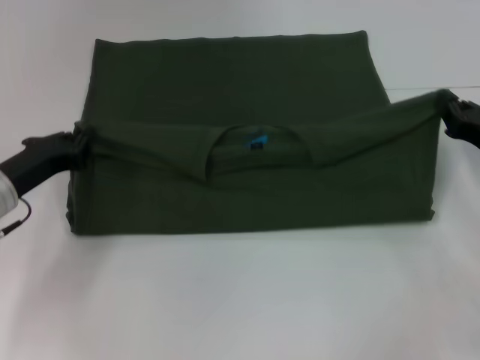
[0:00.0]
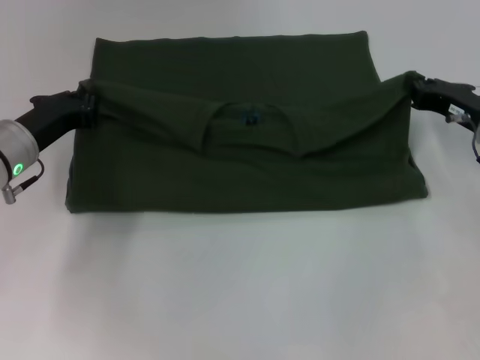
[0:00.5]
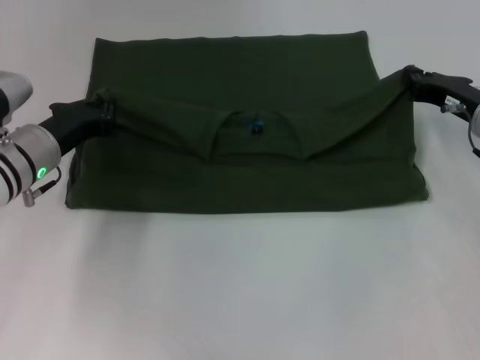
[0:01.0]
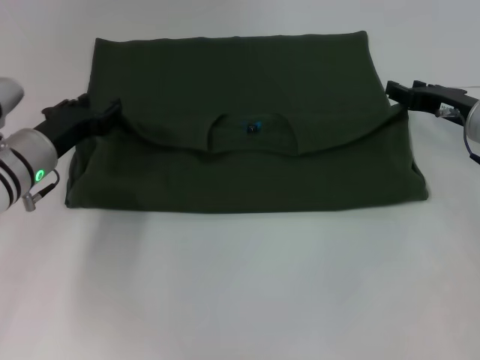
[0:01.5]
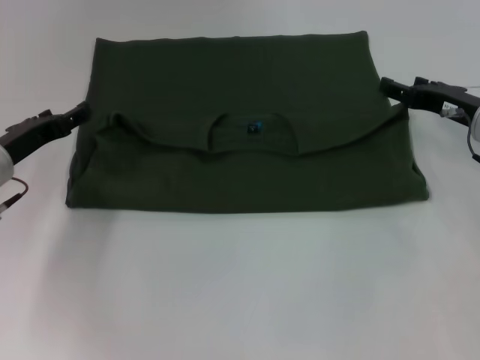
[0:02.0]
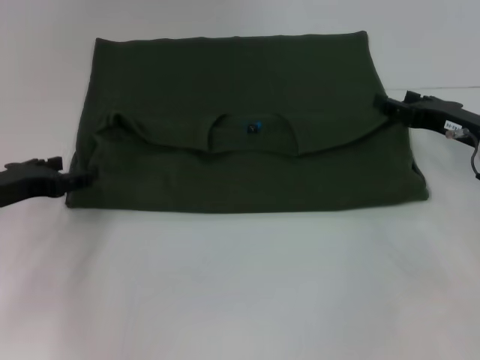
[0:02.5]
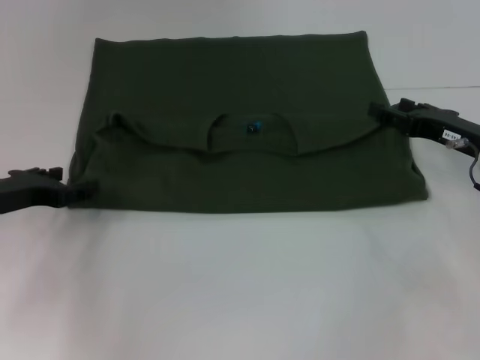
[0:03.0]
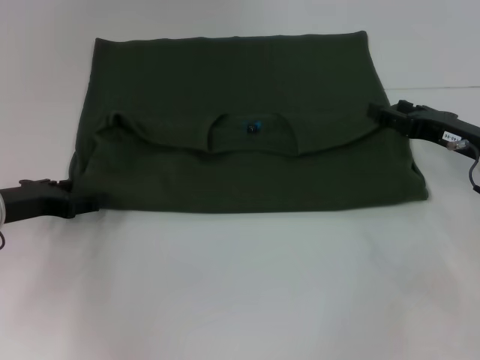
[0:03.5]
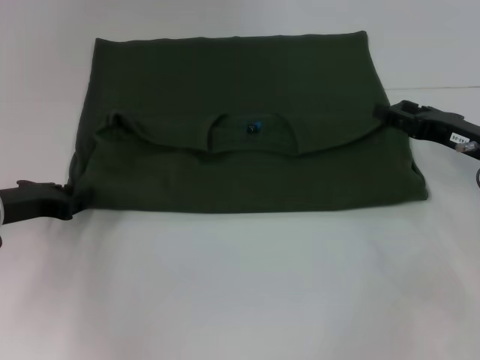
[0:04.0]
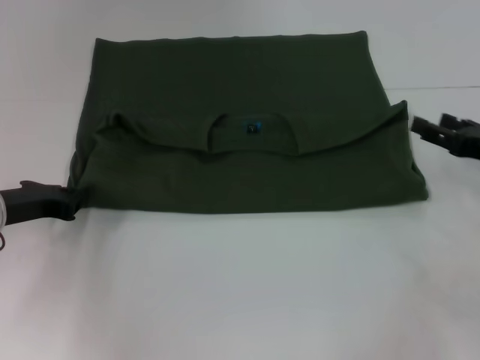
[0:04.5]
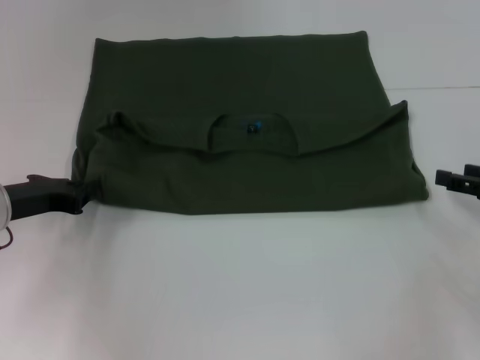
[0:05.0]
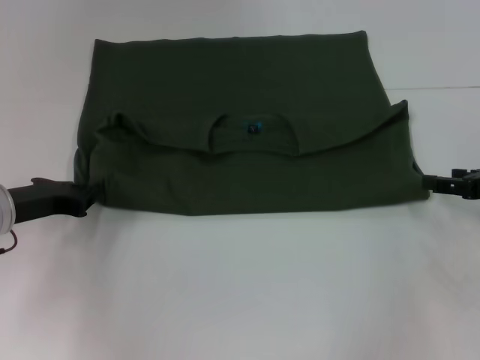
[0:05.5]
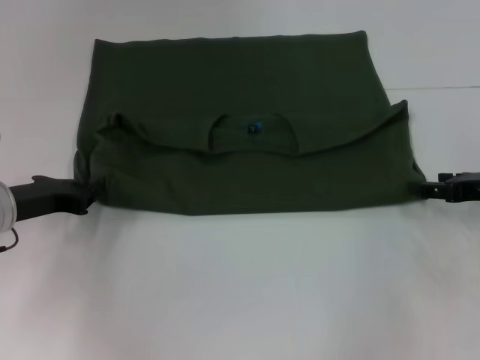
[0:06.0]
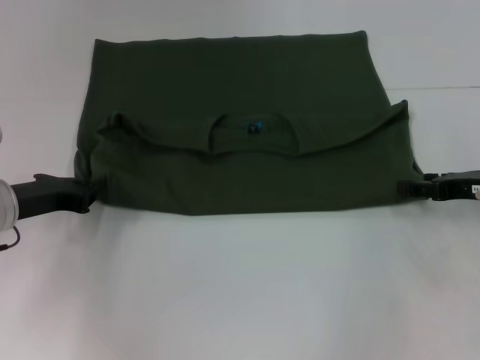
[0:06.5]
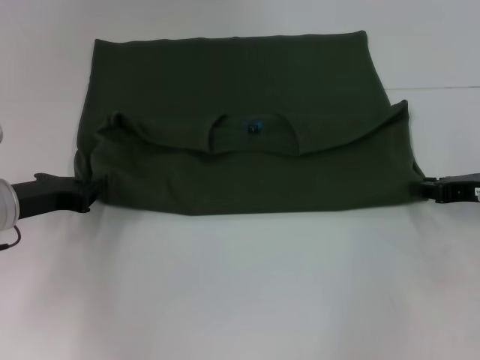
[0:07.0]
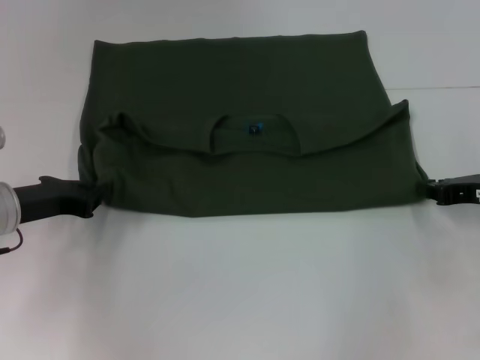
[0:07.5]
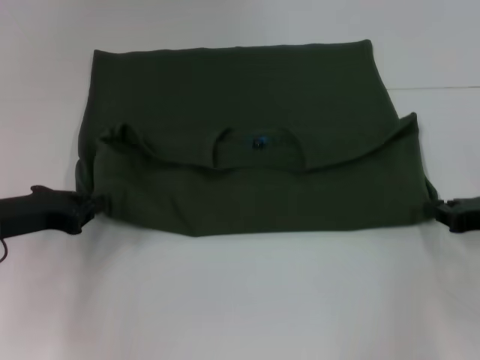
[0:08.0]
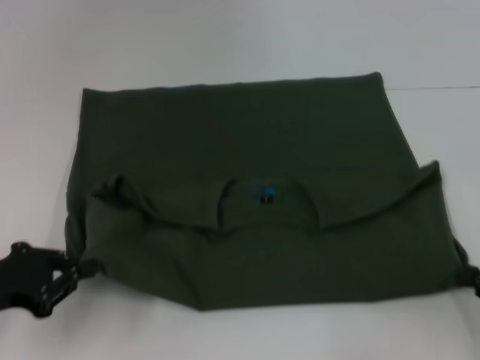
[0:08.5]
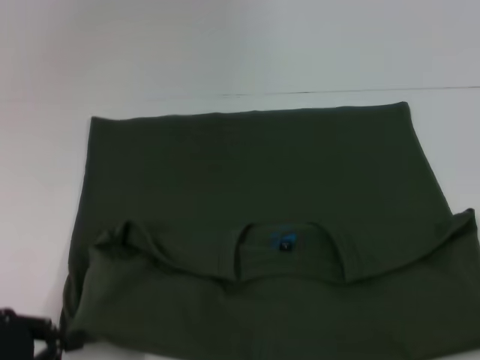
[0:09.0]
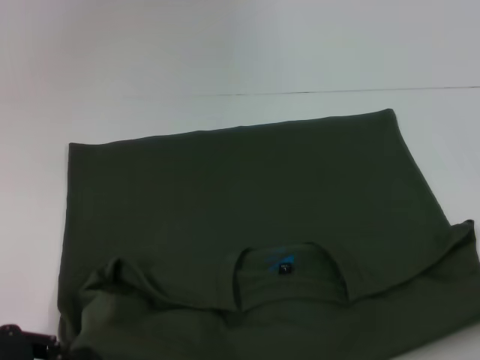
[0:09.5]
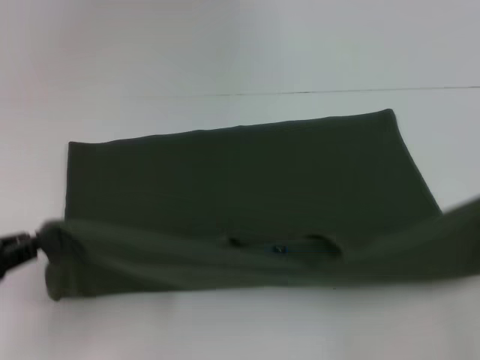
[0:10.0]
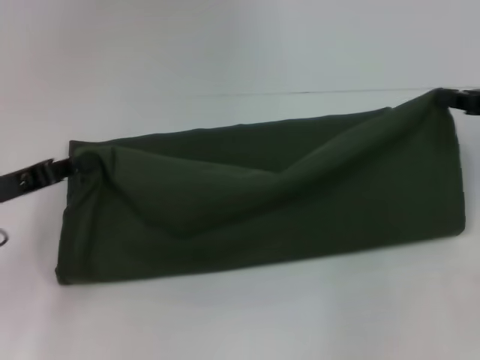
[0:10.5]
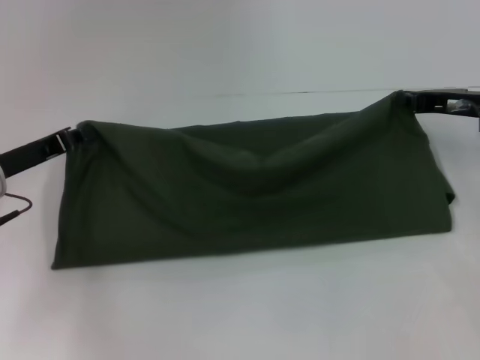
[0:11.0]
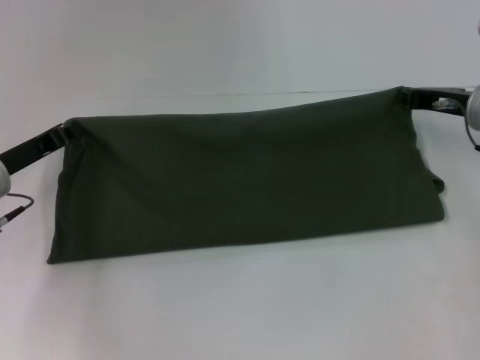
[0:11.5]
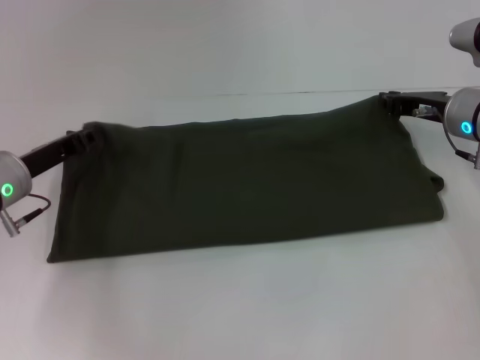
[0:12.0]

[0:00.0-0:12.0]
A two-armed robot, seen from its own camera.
Step, 0:02.0 to 0:09.0: Pull the clothes with your left hand.
Step, 0:02.0 to 0:09.0: Pull the clothes with your right hand.
0:00.0 to 0:02.0: The right gripper is displaced forward by approximately 5 cm, and opens up; the left gripper opens.
0:04.0 to 0:06.0: The left gripper closes up.
0:06.0 to 0:08.0: The right gripper closes its fingers.
0:08.0 to 0:10.0: The right gripper goes roughly 10 cm upward, backward and to the right; the left gripper heads backward and to the left, covering some 10 cm.
0:10.0 to 0:12.0: The left gripper heads forward and to the right, covering some 15 cm. Meanwhile the right gripper is displaced forward and to the left by roughly 25 cm.

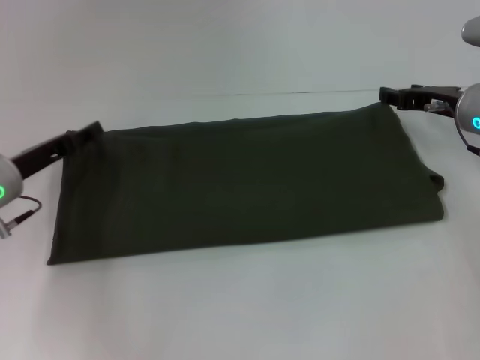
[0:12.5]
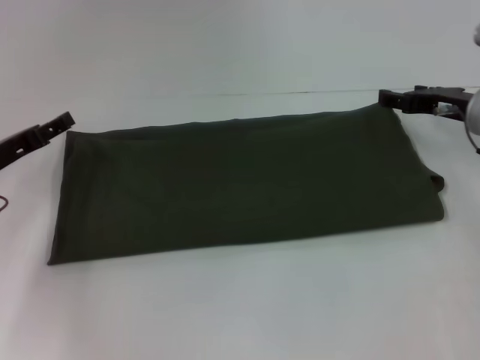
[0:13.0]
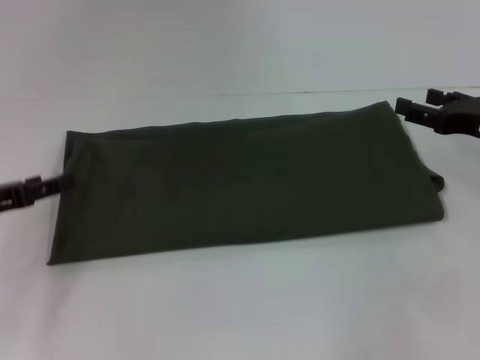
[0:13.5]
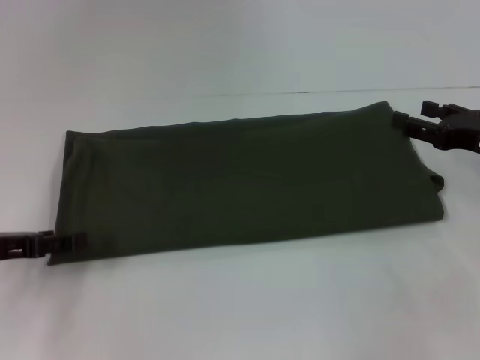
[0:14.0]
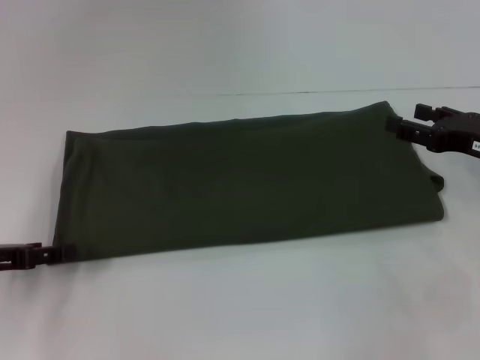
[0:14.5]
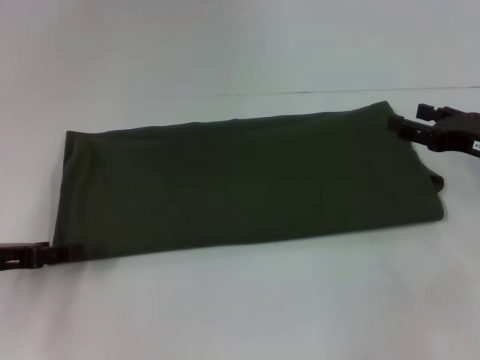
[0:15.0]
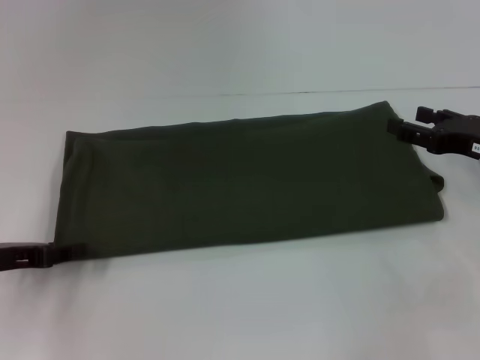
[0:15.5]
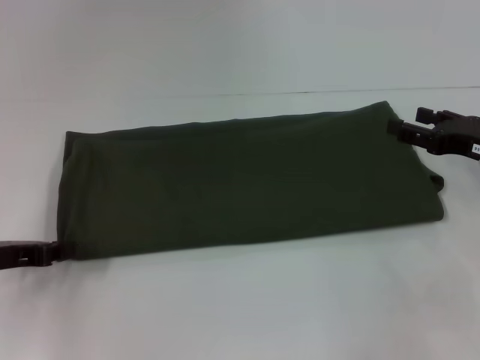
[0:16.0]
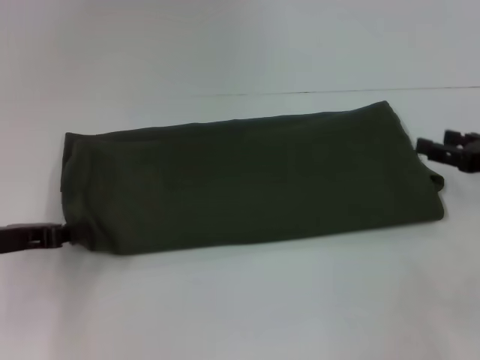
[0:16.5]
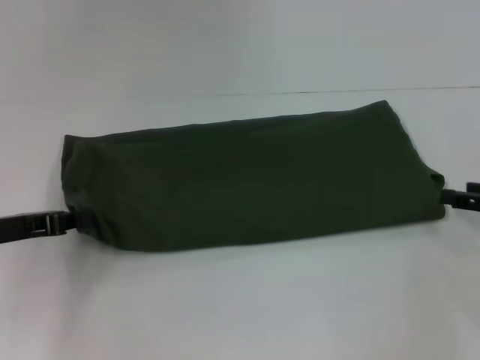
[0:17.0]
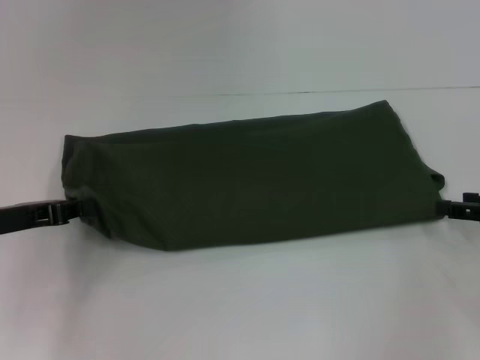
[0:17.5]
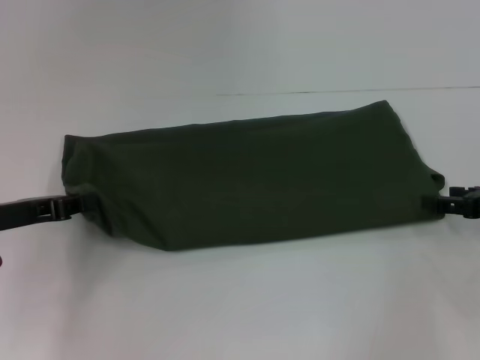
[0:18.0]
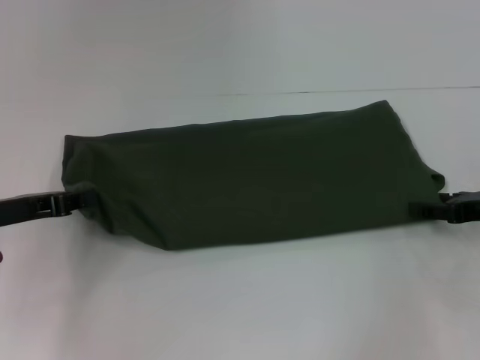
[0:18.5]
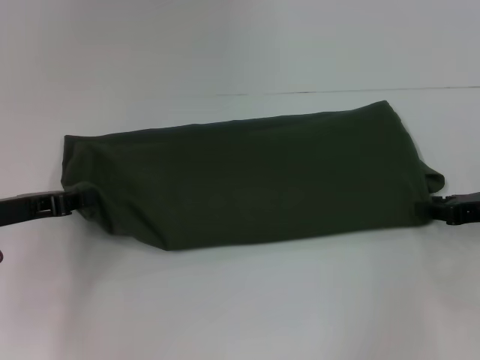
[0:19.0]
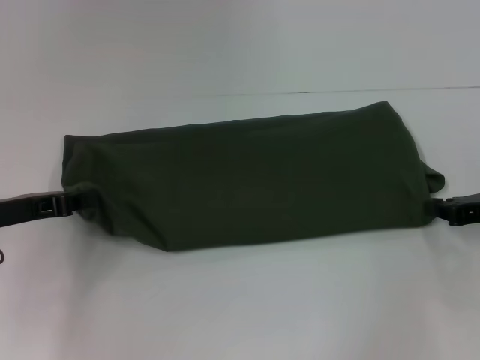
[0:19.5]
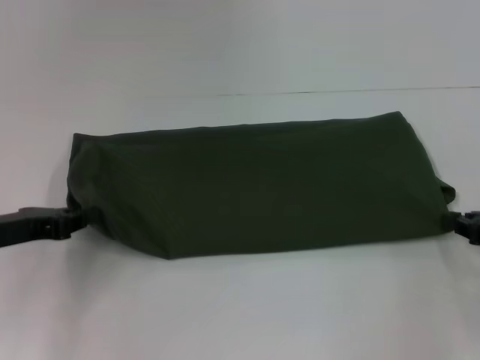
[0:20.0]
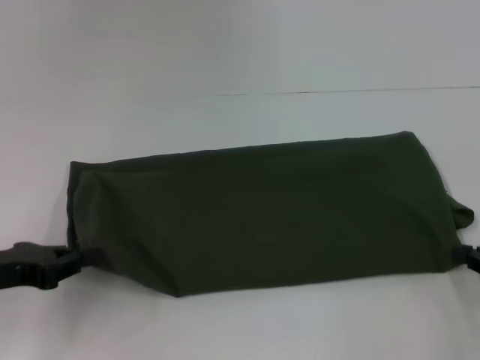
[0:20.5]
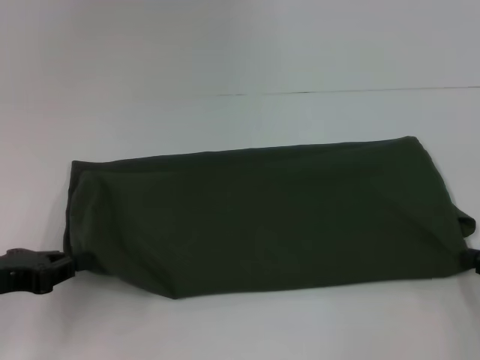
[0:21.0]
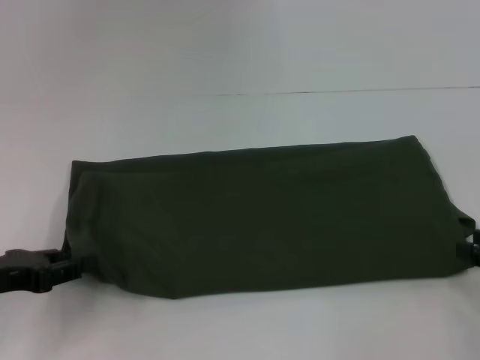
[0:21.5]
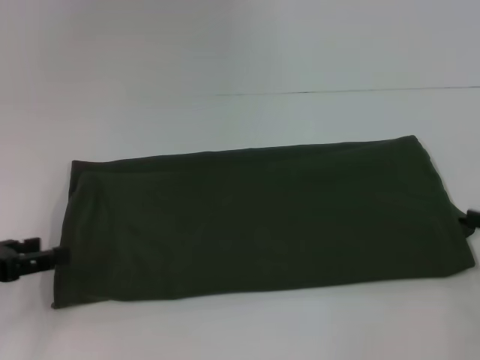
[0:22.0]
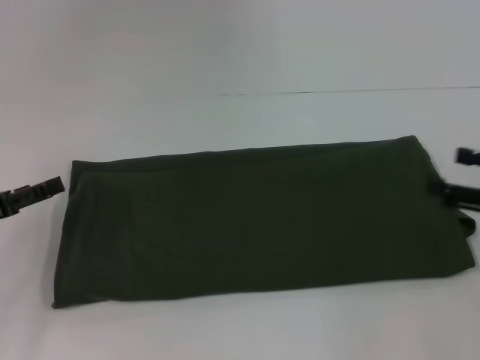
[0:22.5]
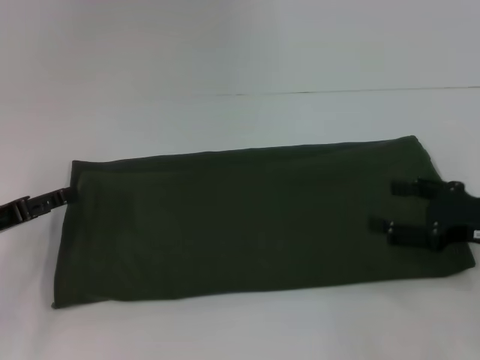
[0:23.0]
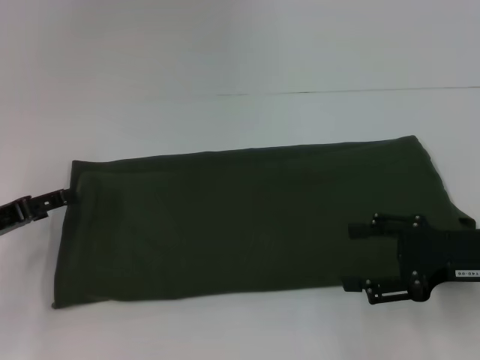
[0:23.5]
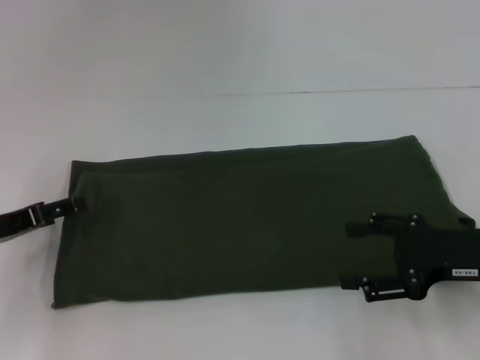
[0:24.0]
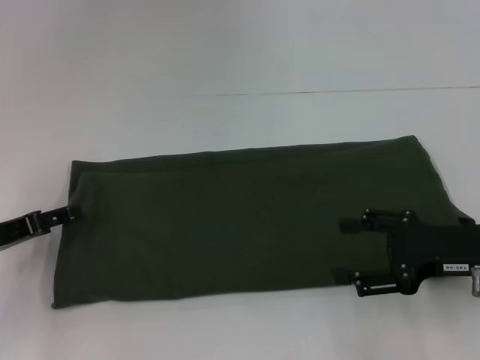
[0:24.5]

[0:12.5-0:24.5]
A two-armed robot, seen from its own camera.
Step, 0:13.5 to 0:22.0: Pull the clothes with your left hand.
Step, 0:13.5 to 0:22.0: Pull the clothes with your right hand.
0:12.5 to 0:14.5: The left gripper shifts approximately 10 cm backward and to the left, and opens. Meanwhile the right gripper shifts roughly 10 cm backward, and opens.
0:14.5 to 0:16.5: The left gripper closes its fingers.
0:16.5 to 0:18.5: The grippers make only small movements.
0:18.5 to 0:20.5: Both grippers move backward, some 5 cm. The right gripper closes its fingers.
0:20.5 to 0:22.5: The right gripper moves about 5 cm, and opens. Meanwhile the left gripper opens up.
0:22.5 to 0:24.5: The right gripper travels to the left by some 10 cm.

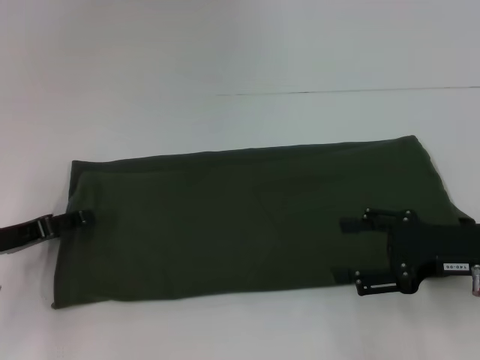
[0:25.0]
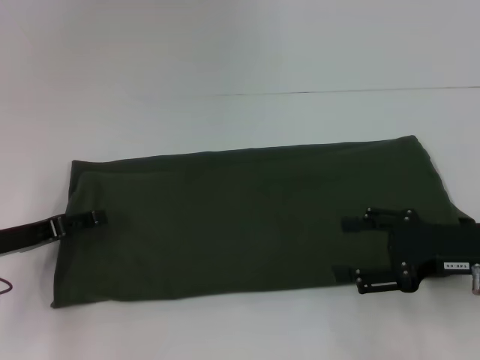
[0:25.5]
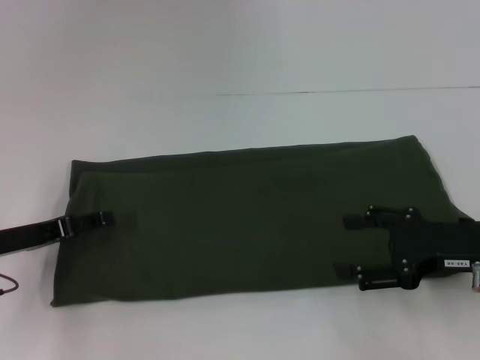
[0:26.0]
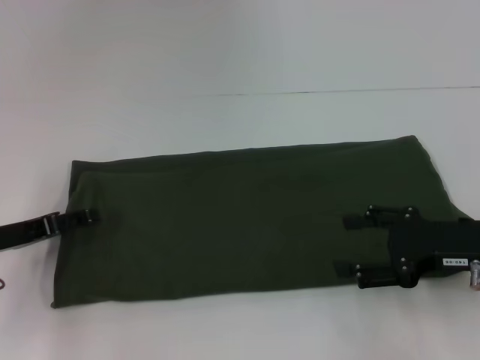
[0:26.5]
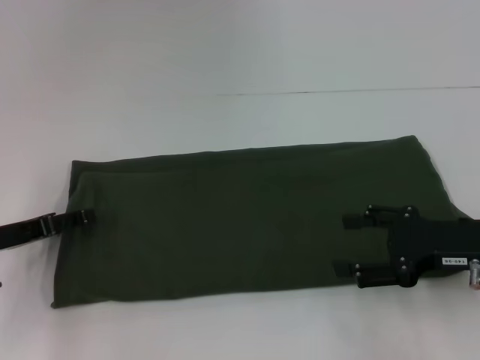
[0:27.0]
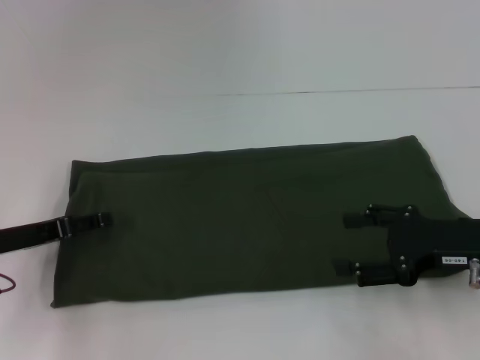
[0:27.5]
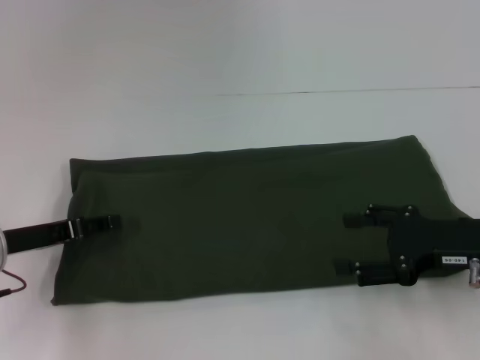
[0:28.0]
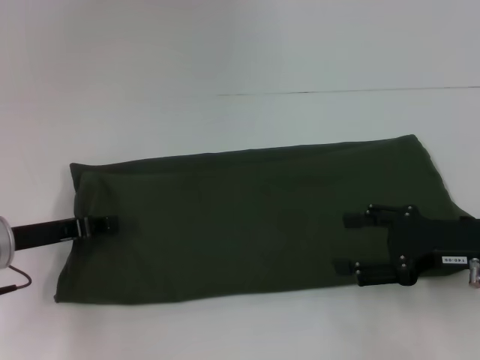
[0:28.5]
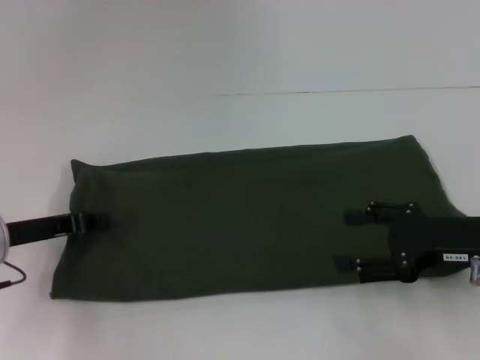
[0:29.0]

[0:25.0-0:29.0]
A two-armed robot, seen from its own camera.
0:25.0 to 0:27.0: The grippers move only a little.
0:27.0 to 0:29.0: The left gripper closes up.
